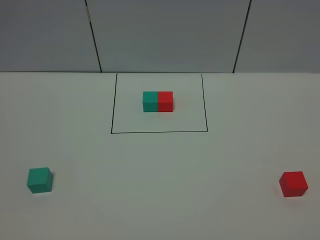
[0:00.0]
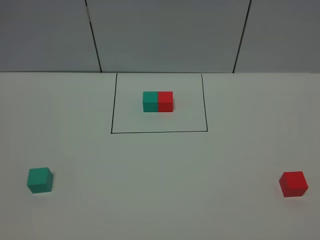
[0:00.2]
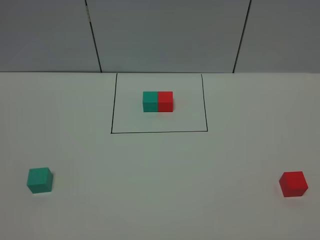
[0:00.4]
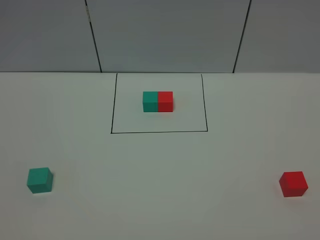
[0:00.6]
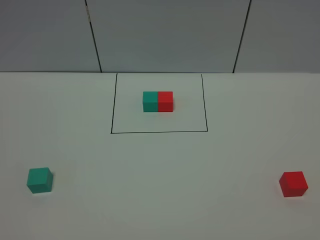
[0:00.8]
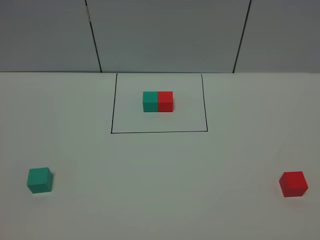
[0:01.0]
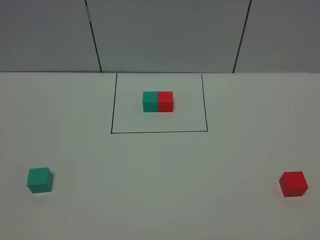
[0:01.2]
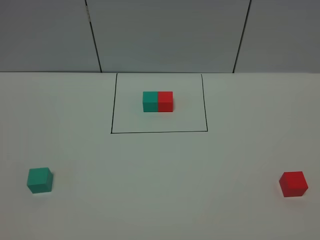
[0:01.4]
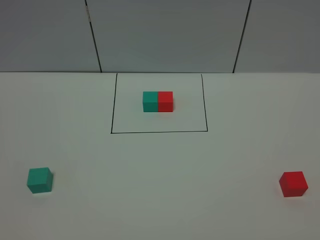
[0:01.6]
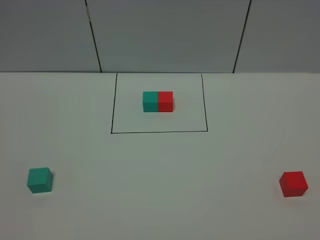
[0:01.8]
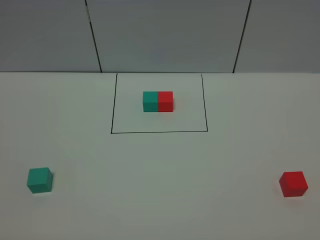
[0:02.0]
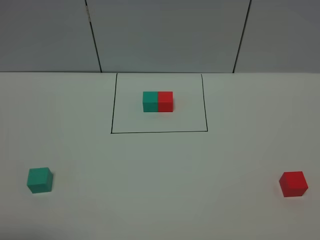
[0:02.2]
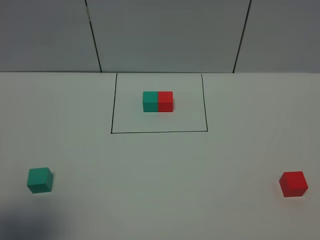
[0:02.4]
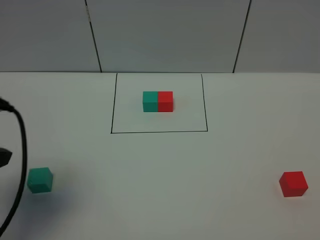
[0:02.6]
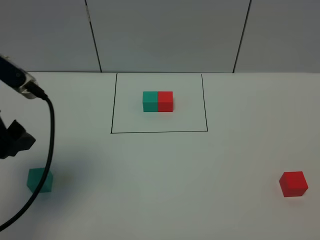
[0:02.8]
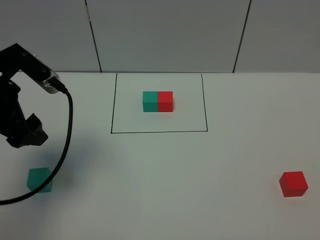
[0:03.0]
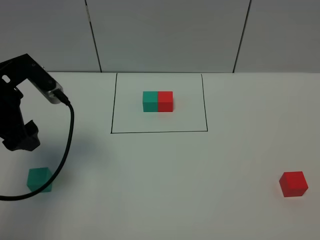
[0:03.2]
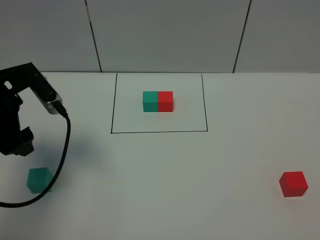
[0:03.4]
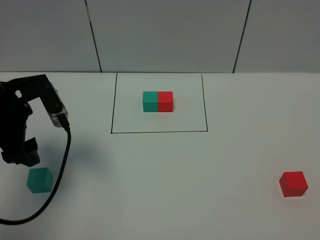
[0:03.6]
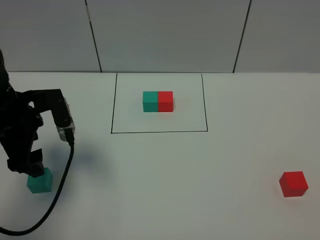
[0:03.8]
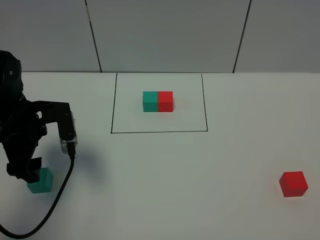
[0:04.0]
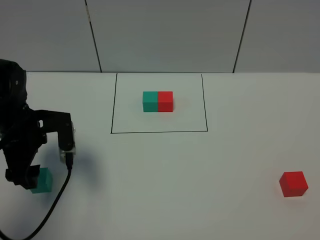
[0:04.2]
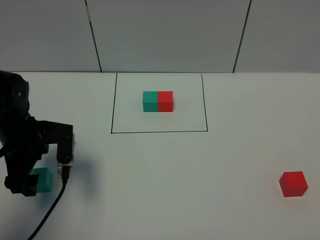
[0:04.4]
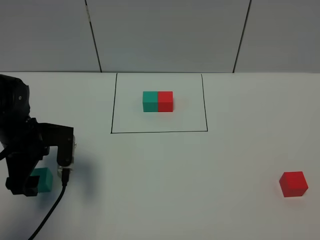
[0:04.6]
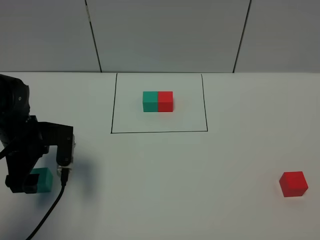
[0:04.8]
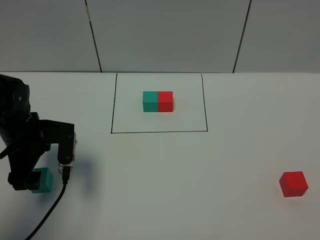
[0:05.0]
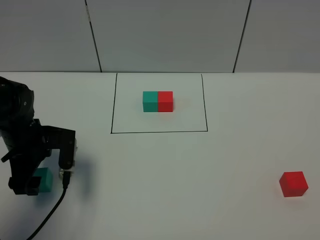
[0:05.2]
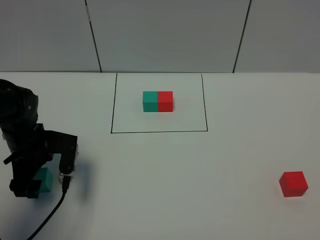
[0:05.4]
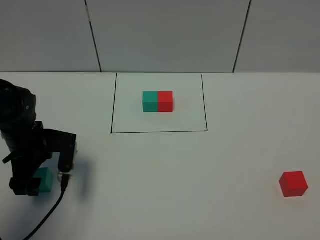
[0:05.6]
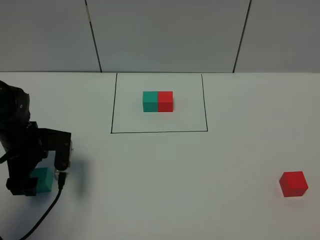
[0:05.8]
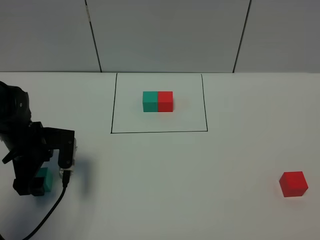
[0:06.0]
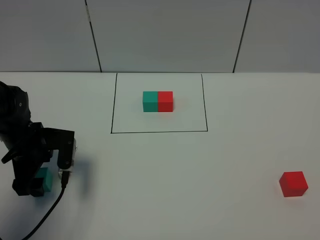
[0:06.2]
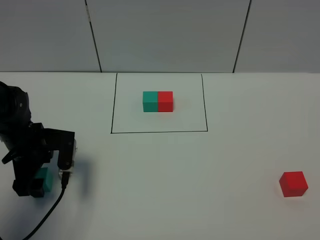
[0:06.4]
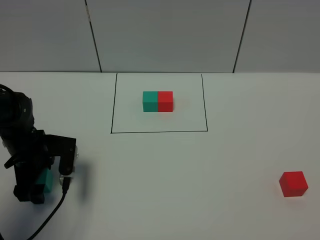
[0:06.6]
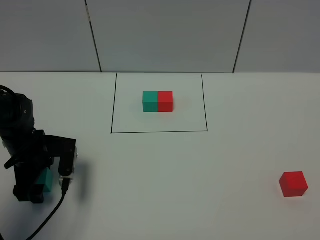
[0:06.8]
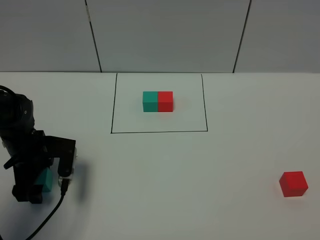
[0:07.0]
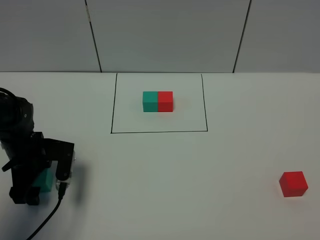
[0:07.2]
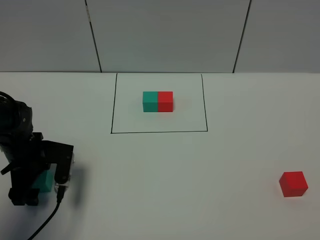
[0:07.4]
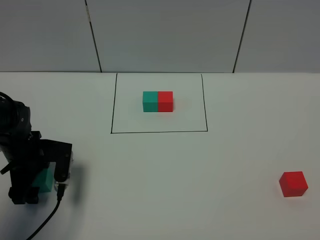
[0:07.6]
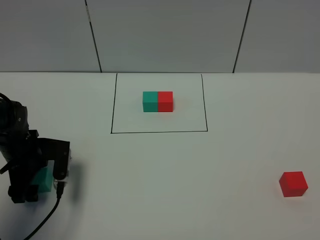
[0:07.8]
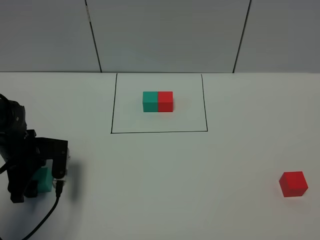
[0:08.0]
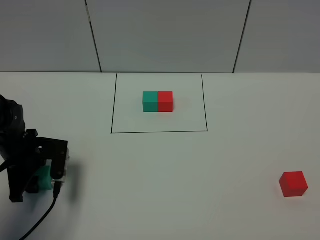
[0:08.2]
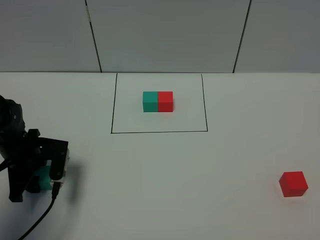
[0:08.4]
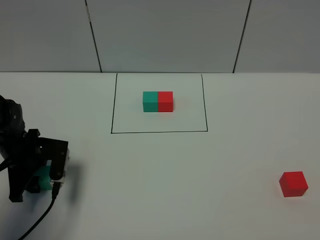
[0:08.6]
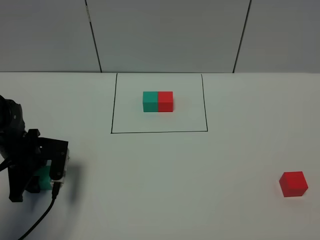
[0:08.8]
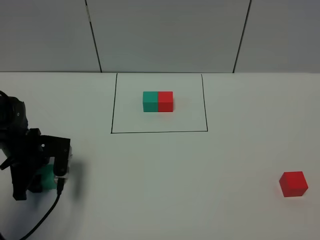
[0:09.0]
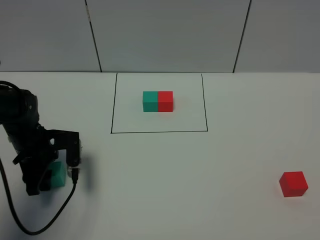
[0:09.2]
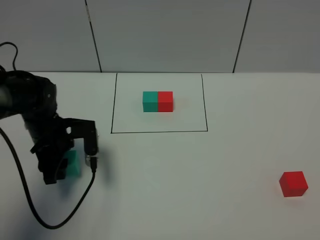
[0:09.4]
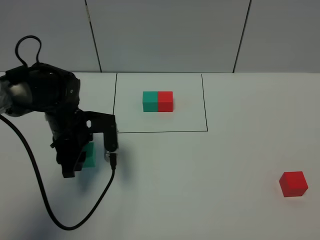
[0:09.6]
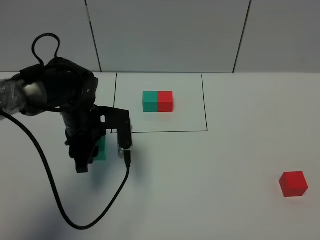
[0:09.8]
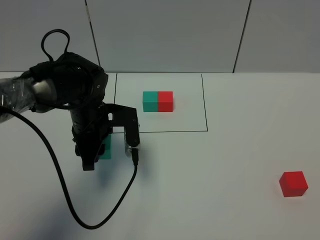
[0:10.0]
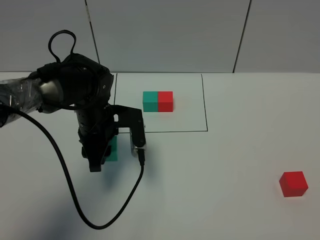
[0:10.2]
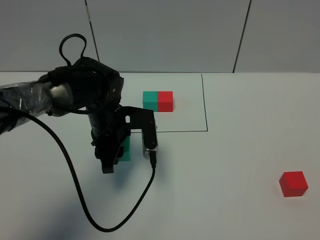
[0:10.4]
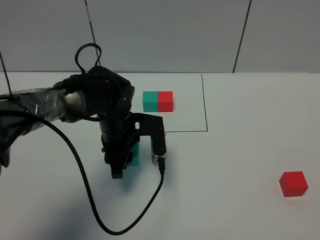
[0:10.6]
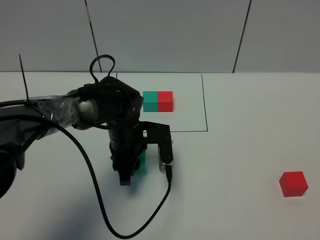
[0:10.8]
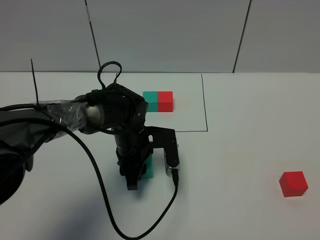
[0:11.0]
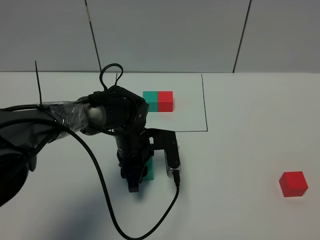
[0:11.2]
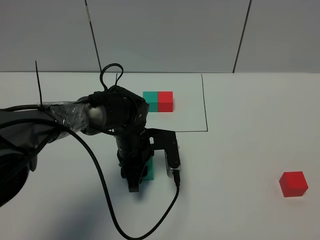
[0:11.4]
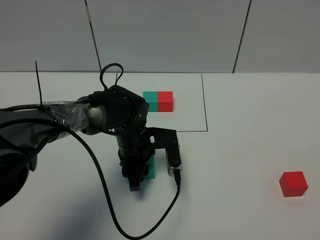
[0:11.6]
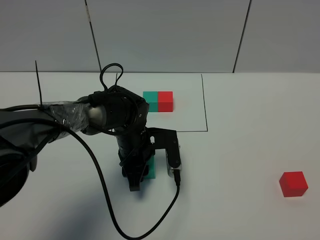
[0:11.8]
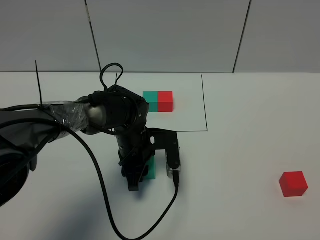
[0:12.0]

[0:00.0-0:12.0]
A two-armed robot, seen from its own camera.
Task of the whole recording: According to the building block template in front, assemble the scattered blocks together.
0:00.0 to 0:01.6: The two grippers keep their place.
0:01.6 to 0:03.0: The left gripper heads forward, covering about 30 cm.
0:03.0 to 0:04.4: The left gripper goes roughly 10 cm downward.
0:04.4 to 0:06.0: The grippers make only small movements.
0:06.0 to 0:07.6: There are only small adjustments of the grippers.
0:07.6 to 0:09.0: The left gripper closes its fingers.
0:09.0 to 0:10.4: The left gripper travels to the right by roughly 15 cm.
0:10.4 to 0:12.0: The left gripper goes approximately 5 cm downward.

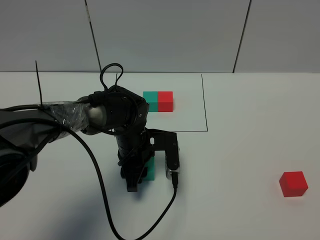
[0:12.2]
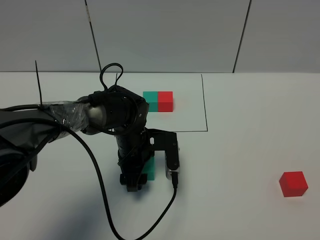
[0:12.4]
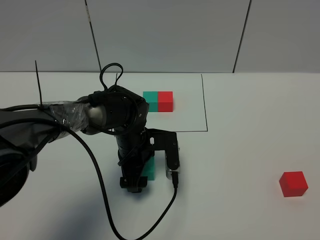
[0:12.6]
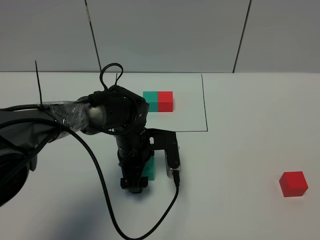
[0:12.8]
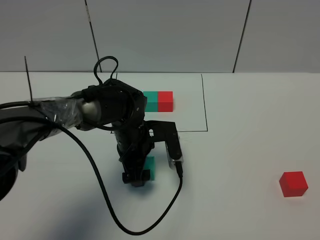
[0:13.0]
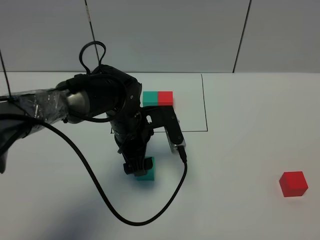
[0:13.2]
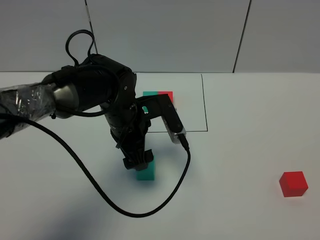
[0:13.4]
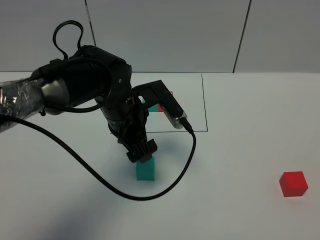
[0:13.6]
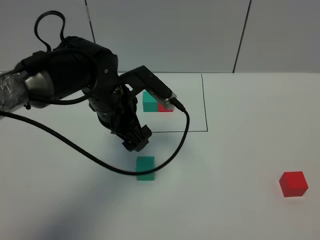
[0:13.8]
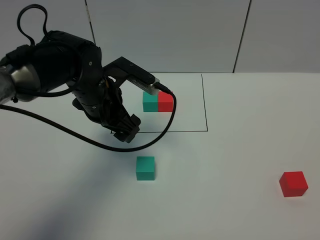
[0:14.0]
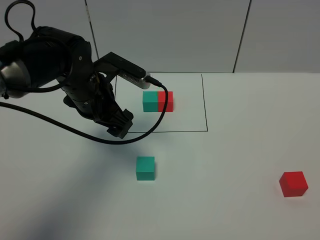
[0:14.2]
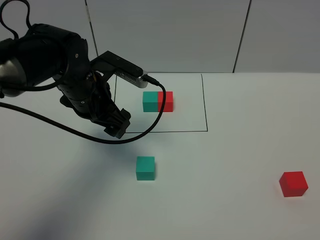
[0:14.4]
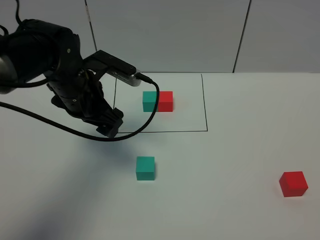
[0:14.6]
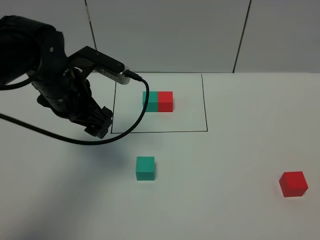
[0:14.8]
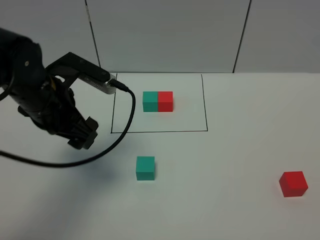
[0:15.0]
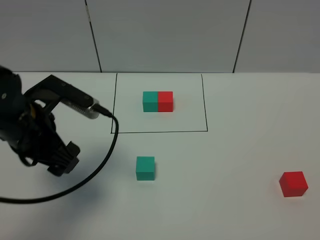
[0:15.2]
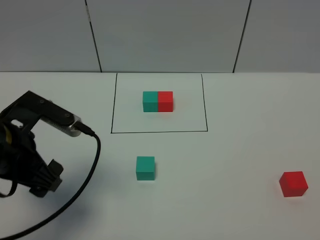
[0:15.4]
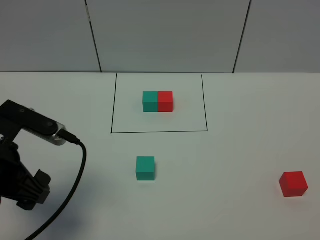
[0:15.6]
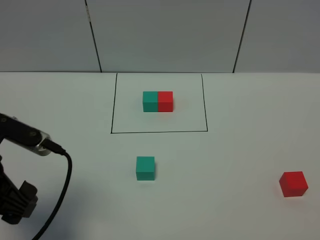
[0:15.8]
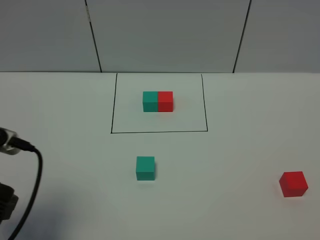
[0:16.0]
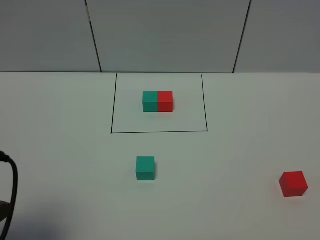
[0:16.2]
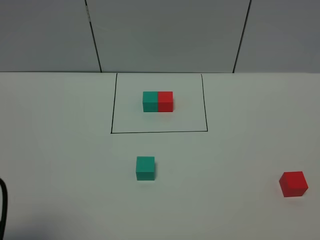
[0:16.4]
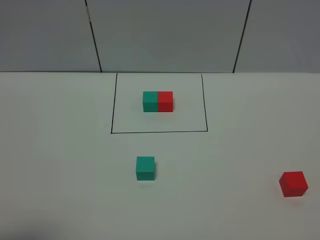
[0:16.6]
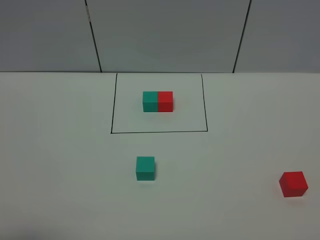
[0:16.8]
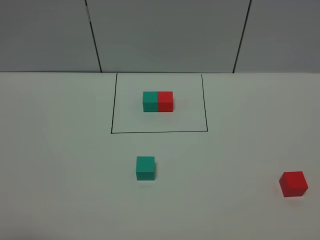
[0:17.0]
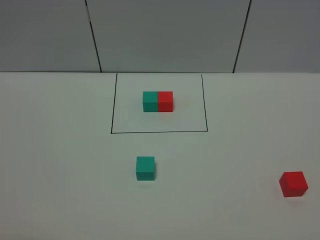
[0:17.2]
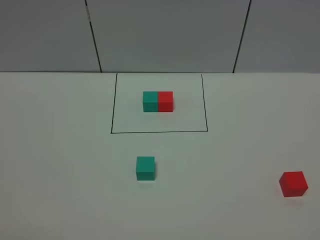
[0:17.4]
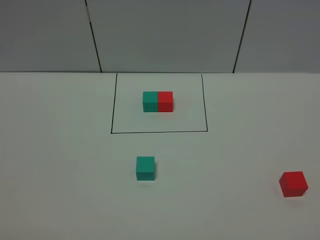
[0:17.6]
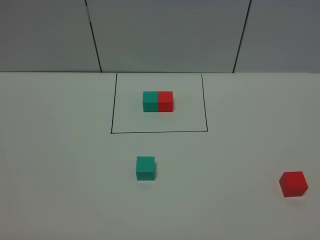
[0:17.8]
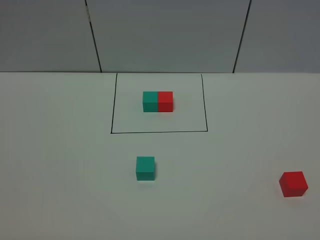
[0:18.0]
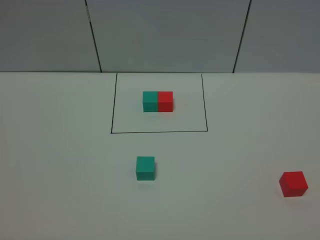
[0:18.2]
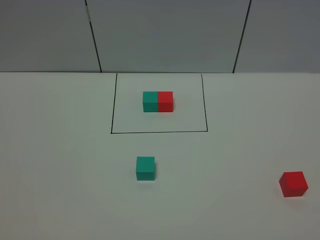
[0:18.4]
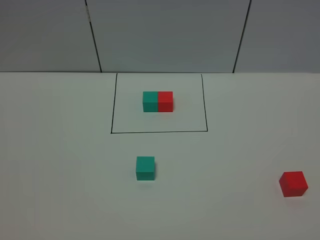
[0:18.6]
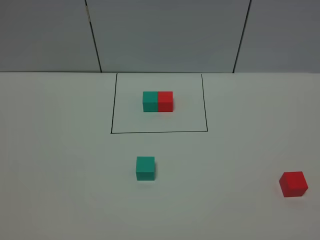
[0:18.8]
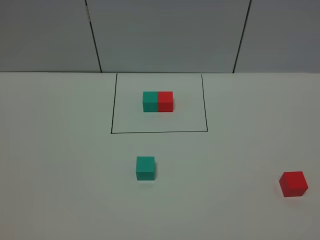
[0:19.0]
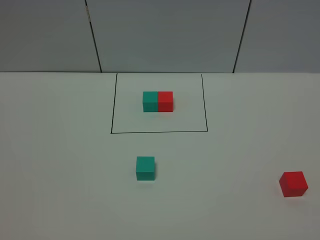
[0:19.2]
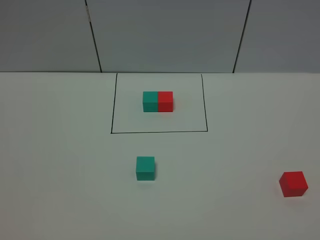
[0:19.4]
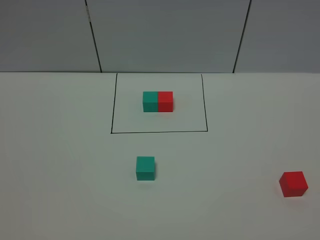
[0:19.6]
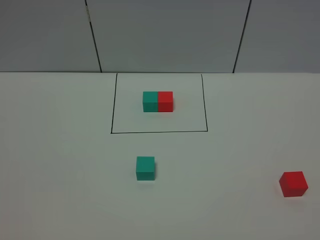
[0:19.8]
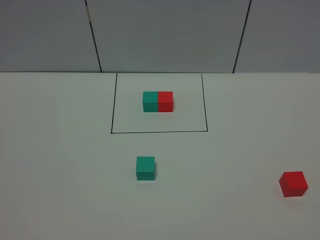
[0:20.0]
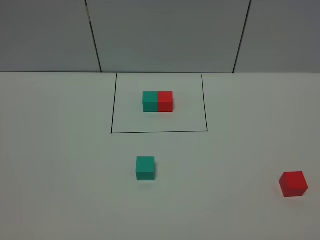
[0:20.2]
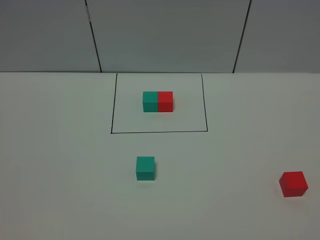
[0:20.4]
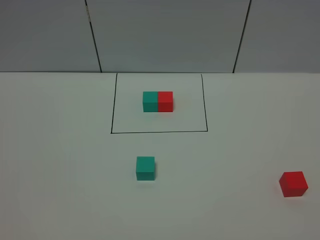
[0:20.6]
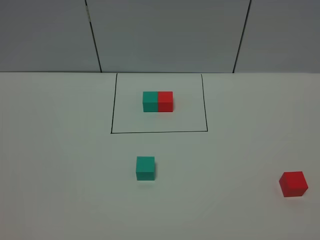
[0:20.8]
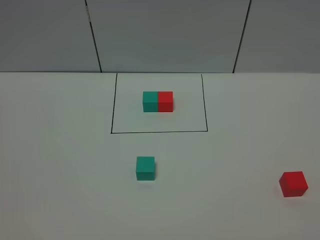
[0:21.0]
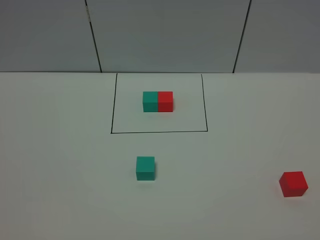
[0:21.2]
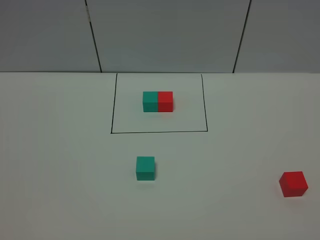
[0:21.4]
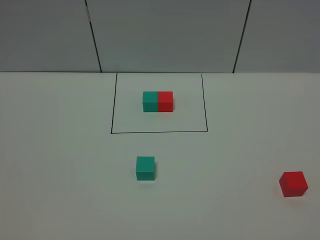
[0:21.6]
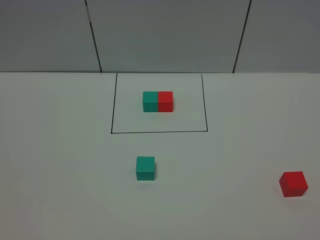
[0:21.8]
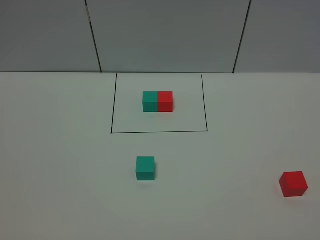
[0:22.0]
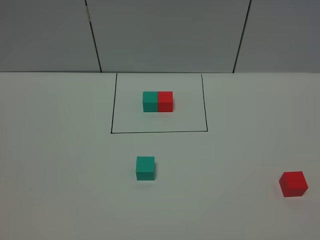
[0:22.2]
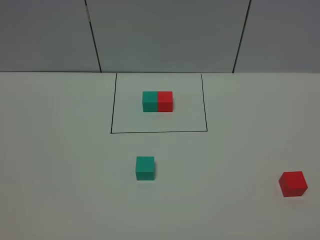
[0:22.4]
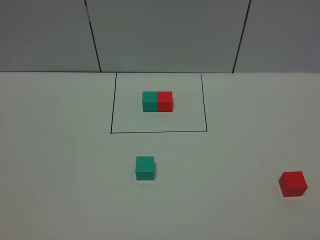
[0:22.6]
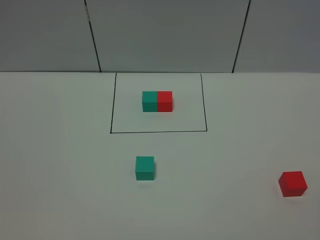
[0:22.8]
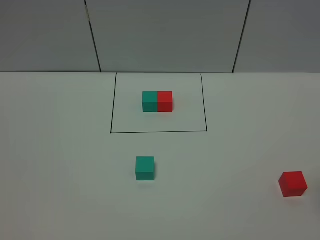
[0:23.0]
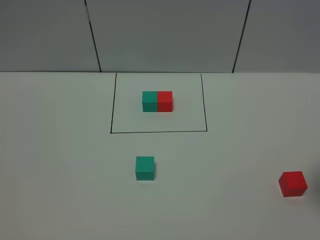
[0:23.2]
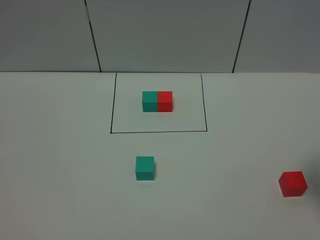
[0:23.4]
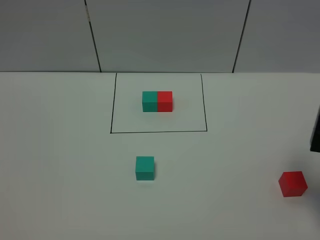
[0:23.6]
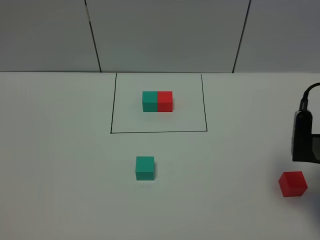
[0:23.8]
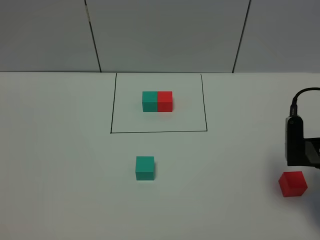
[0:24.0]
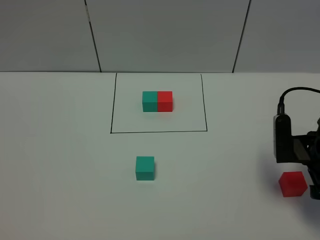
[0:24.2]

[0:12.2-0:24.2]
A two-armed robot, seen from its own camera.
Task of the whole recording: According to the building block template in front, assemble the scattered blocks together.
0:12.2 to 0:13.8: The left gripper shifts approximately 10 cm upward, and opens.
0:13.8 to 0:15.2: The left gripper moves to the left and backward, some 15 cm.
0:15.2 to 0:16.6: The left gripper travels backward and to the left by roughly 20 cm.
0:19.8 to 0:21.2: Neither gripper changes place.
0:22.6 to 0:24.2: The right gripper shifts approximately 20 cm forward and downward.
